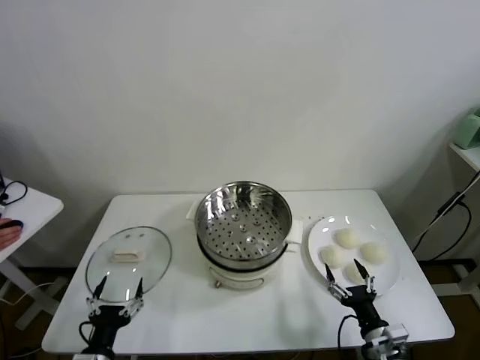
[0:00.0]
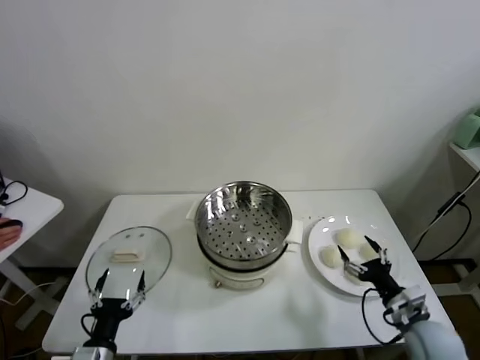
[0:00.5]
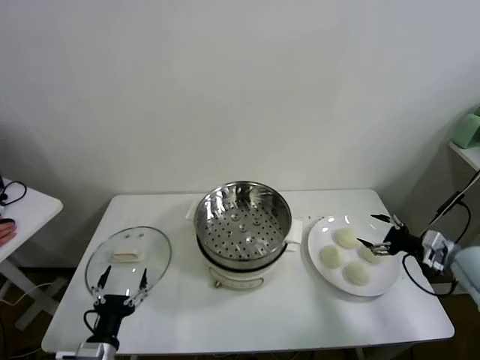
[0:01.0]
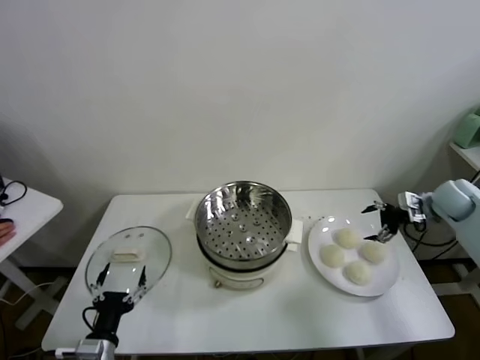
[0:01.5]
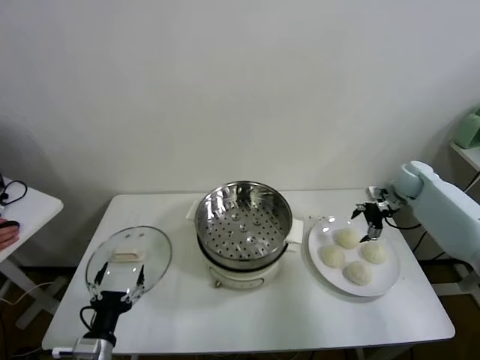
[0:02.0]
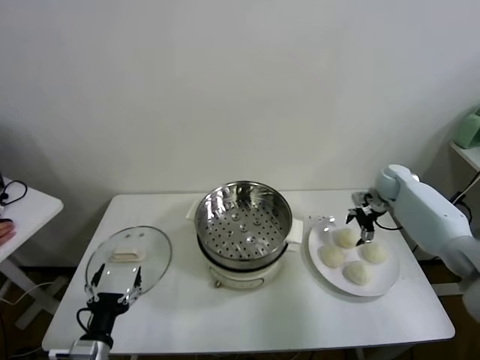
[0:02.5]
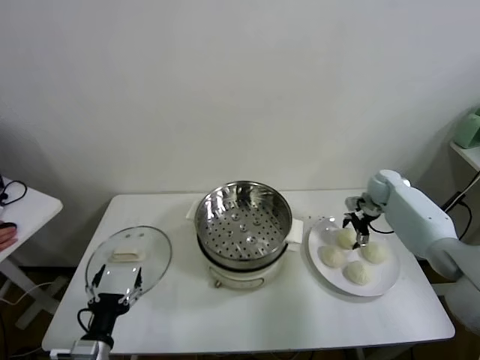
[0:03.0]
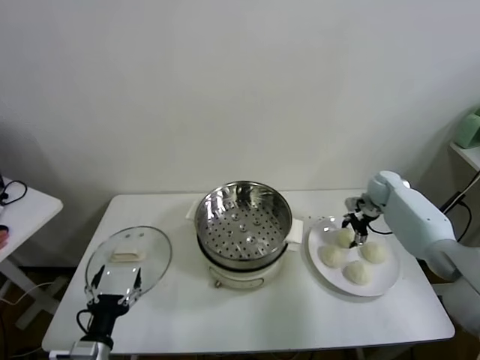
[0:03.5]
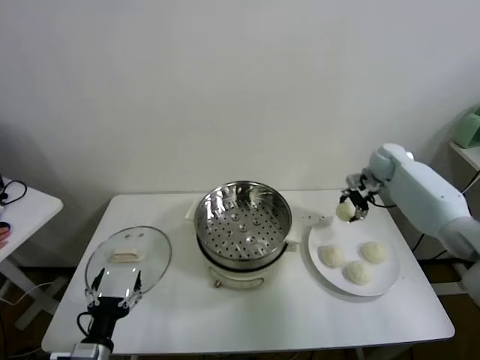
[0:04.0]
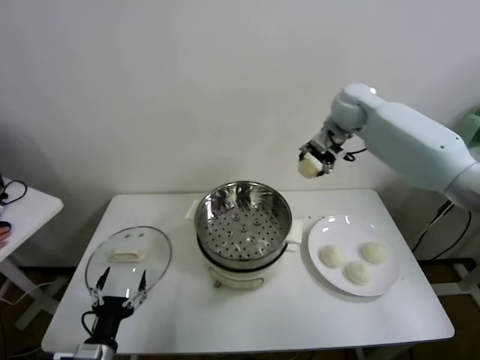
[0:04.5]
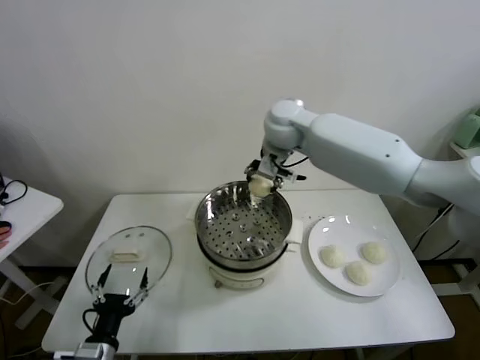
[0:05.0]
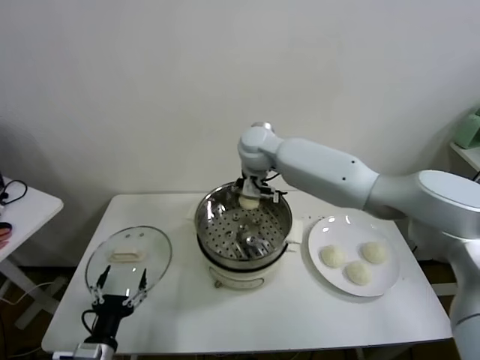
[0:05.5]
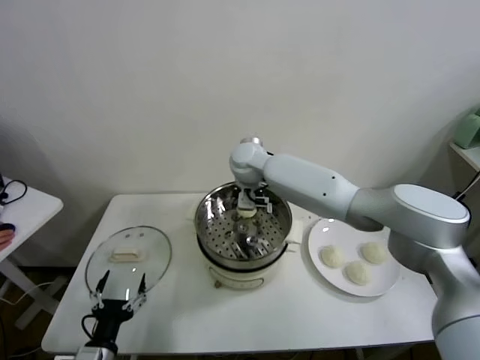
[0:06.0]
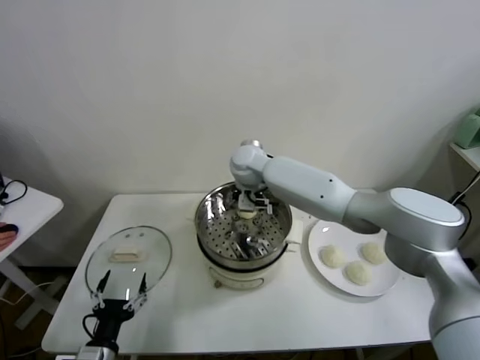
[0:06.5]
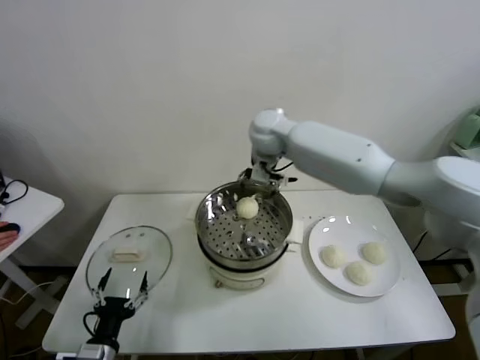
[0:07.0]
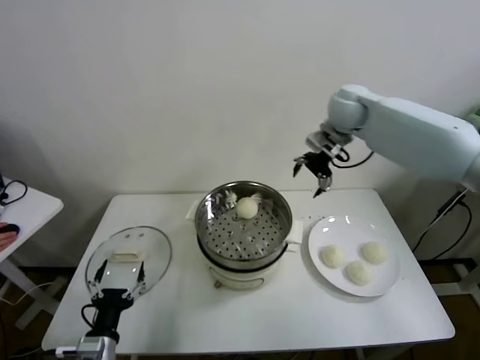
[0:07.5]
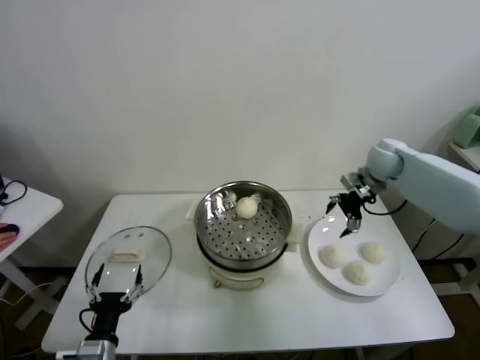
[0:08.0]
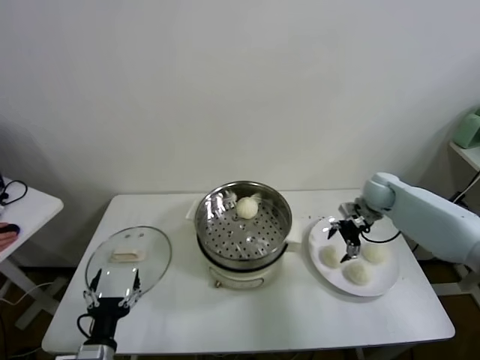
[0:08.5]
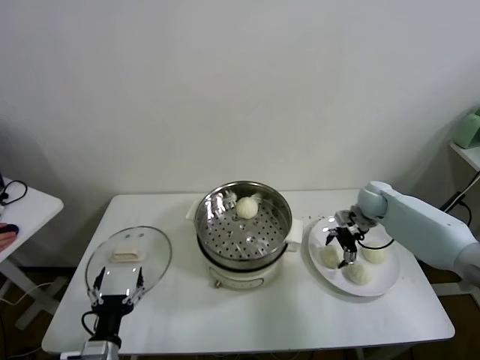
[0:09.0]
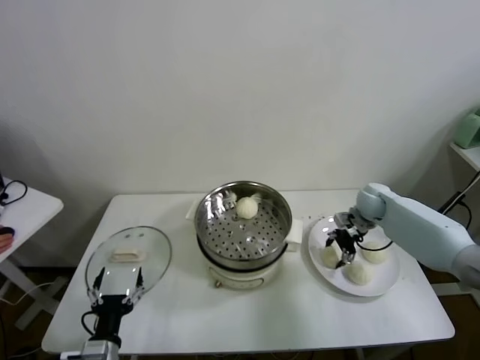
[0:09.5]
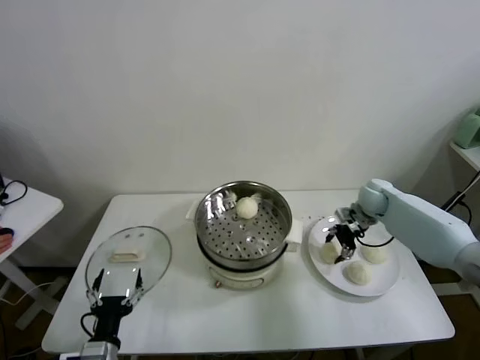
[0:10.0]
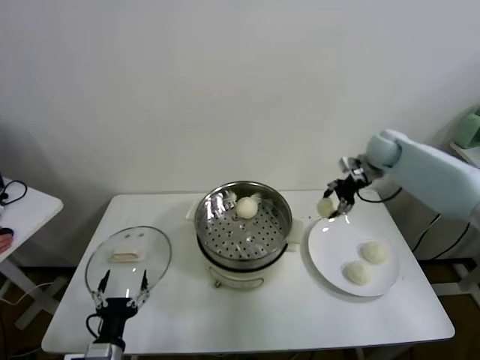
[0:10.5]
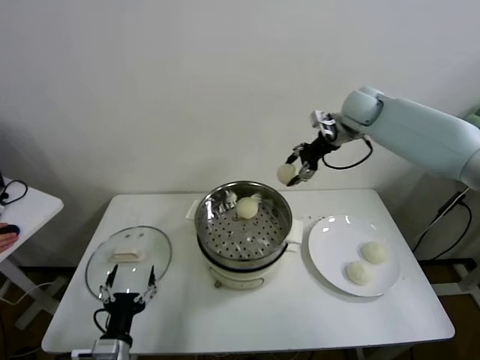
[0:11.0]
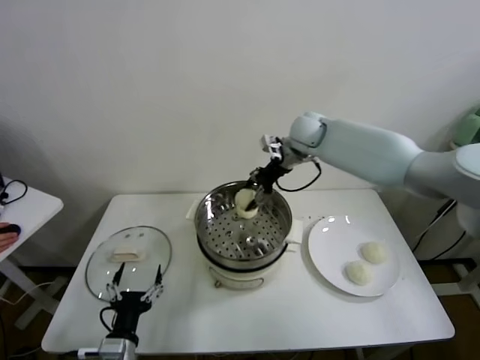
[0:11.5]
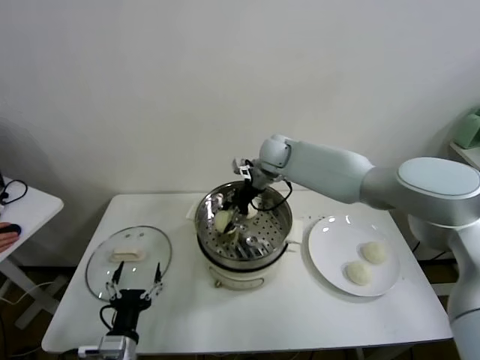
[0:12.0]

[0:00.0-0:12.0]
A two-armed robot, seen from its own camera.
Task of the whole recording: take steamed baozi put them in steamer.
Step, 0.0 to 3.0 s: Grasp the baozi in the plate with right gripper.
Step, 3.5 to 6.5 s: Place the baozi on the steamer with right gripper.
Step, 7.0 to 9.0 s: Grasp the baozi in the plate with right gripper.
2.0 to 4.0 s: The right gripper shifts roughly 10 cm upward and to the left, and closes its fingers.
4.0 to 6.0 s: The right gripper shifts about 35 cm to the left.
6.0 to 8.0 s: The right gripper moves to the right, approximately 35 cm, and opens up.
8.0 to 10.0 s: The right gripper goes about 10 cm downward, and closes its fingers.
10.0 to 12.0 s: The right gripper travels to the left by approximately 30 cm.

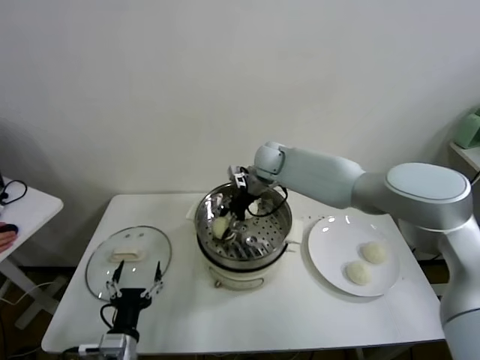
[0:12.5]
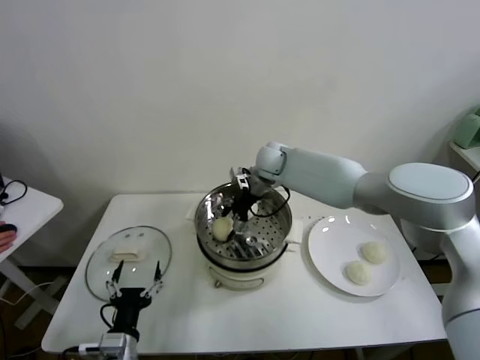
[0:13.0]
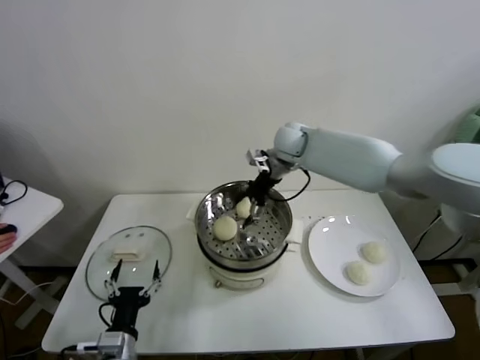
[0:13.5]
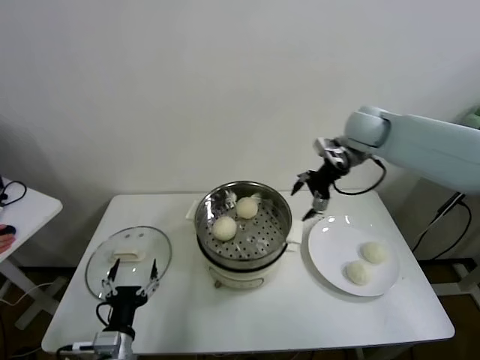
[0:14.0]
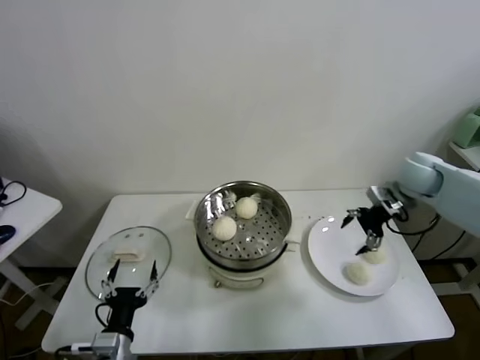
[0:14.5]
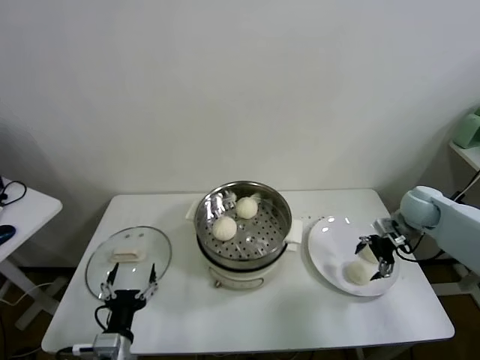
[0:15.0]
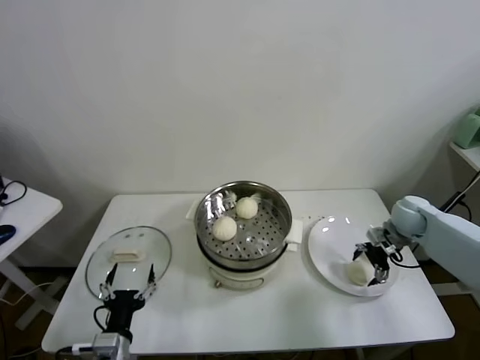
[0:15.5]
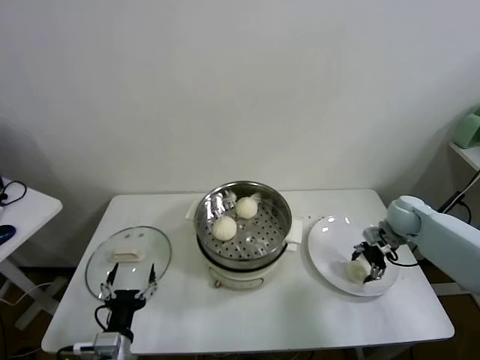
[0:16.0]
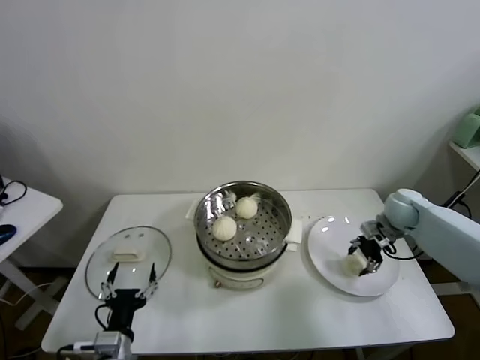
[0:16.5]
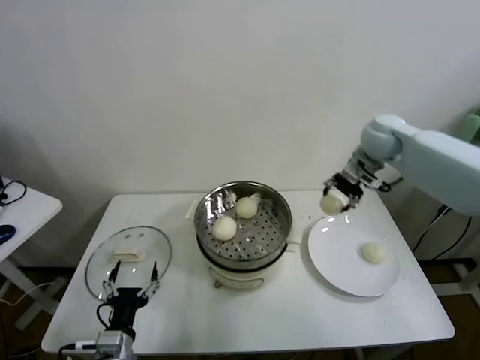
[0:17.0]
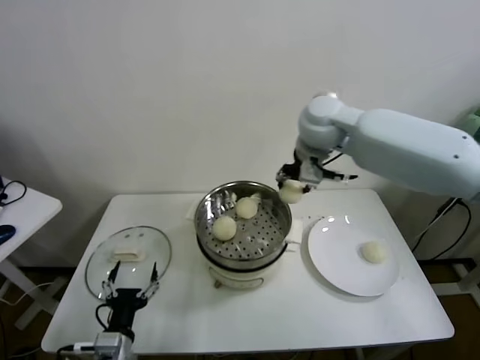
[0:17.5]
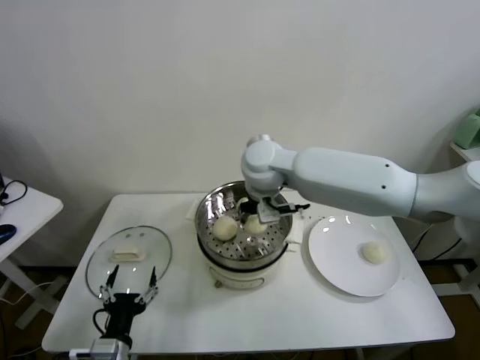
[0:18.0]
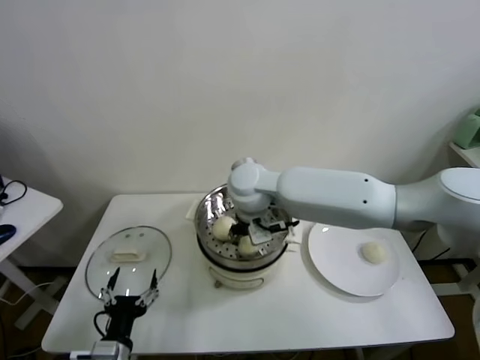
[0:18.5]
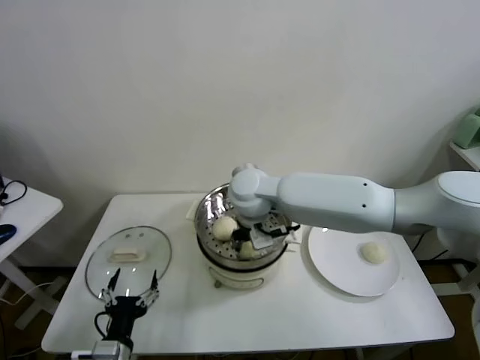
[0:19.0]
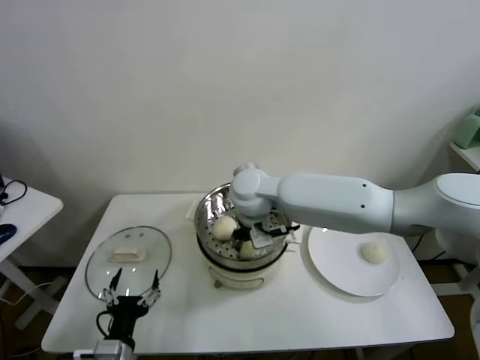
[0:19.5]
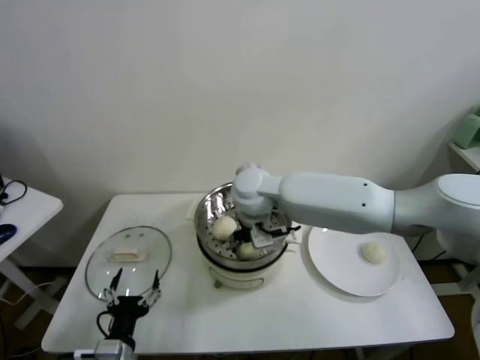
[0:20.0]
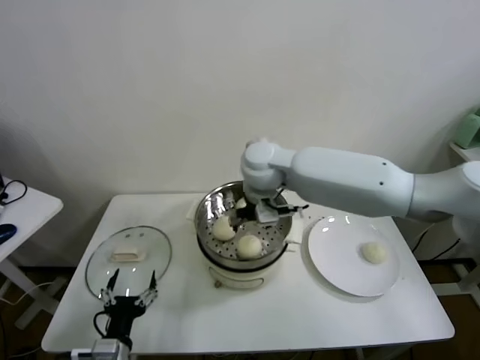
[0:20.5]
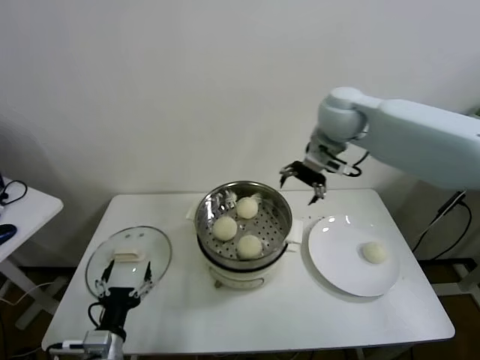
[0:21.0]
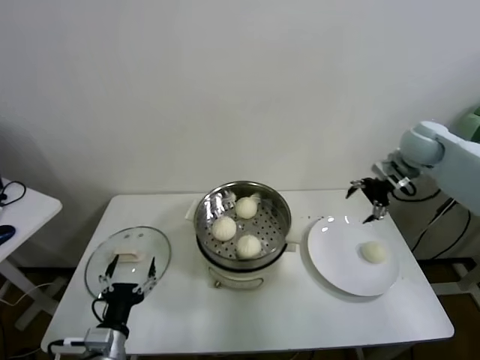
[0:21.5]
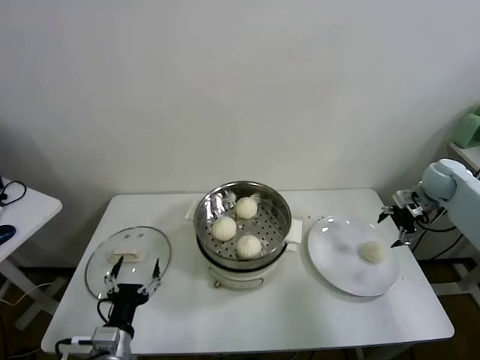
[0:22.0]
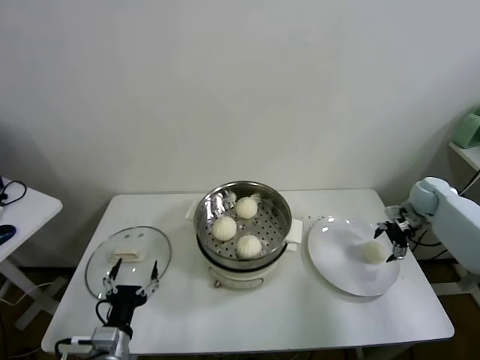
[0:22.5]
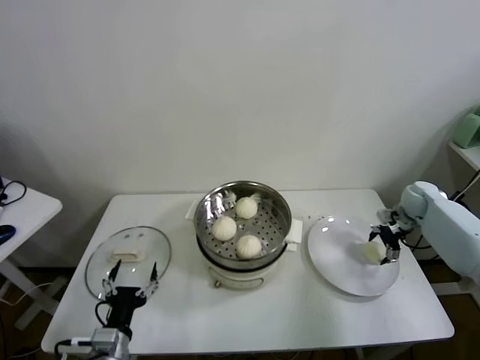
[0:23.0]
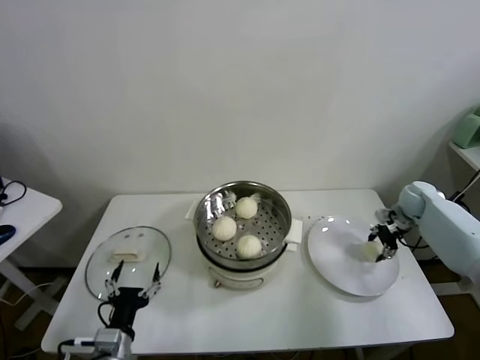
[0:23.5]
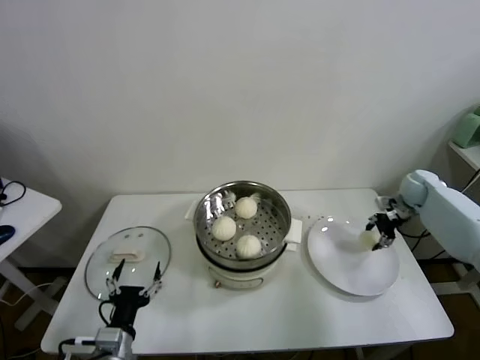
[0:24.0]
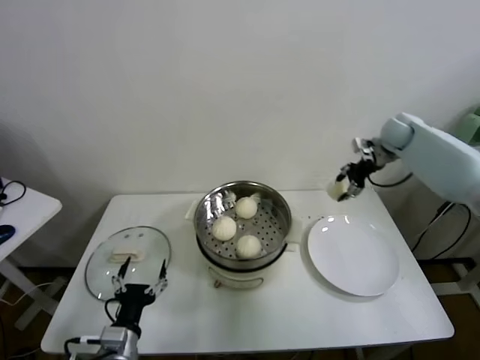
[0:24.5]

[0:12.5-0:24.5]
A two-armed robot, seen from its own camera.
Task of the whole recording: take steamed baozi put them in steamer.
Step, 13.5 to 15.5 s: Grasp the baozi in the plate with right gripper.
Step, 16.0 to 20.0 s: Place the baozi on the steamer with right gripper.
Step, 20.5 to 23.0 s: Grasp the baozi in the plate with right gripper.
12.5 to 14.5 s: The right gripper goes about 35 cm to the right, and opens its fingers.
14.5 to 16.5 s: The right gripper shifts some 10 cm downward, and closes.
16.5 to 18.5 s: The right gripper heads to the left, covering approximately 40 cm.
18.5 to 20.5 s: The right gripper ends up approximately 5 cm from where it was, and opens up.
20.5 to 22.5 s: The right gripper moves to the right, about 50 cm.
22.5 to 24.5 s: The right gripper heads upward, to the left and forward, covering some 20 cm, and closes its fingers.

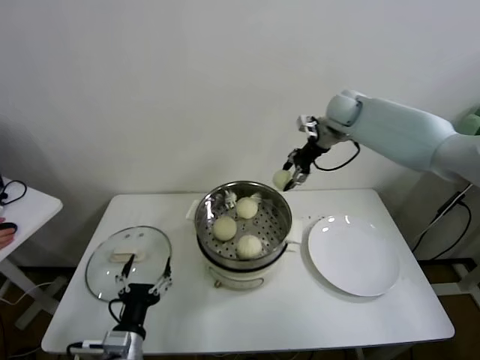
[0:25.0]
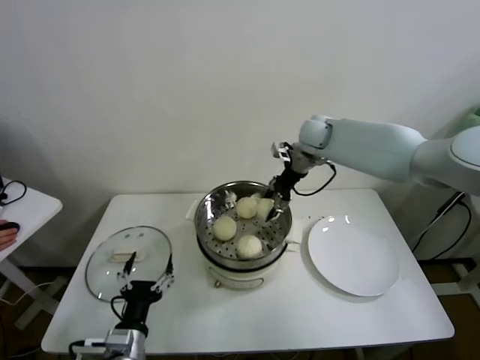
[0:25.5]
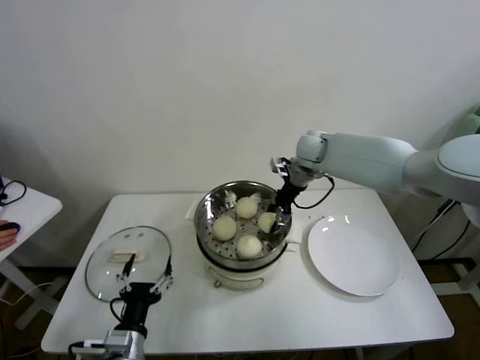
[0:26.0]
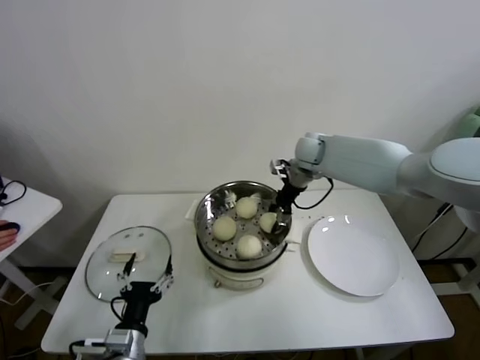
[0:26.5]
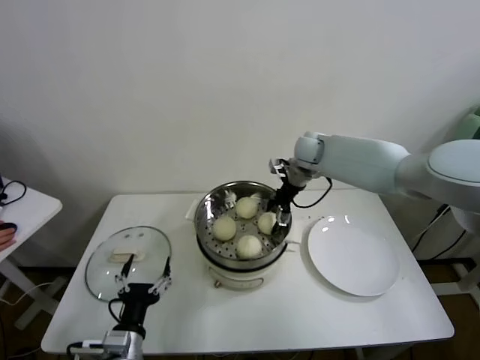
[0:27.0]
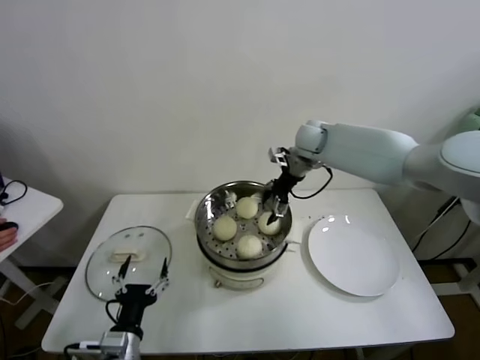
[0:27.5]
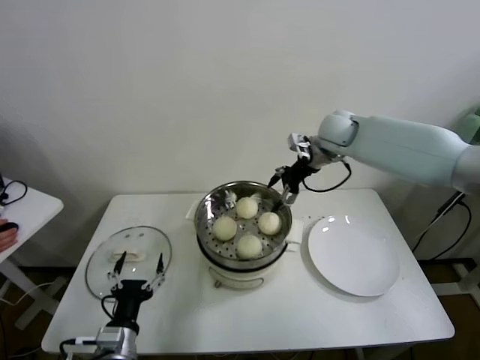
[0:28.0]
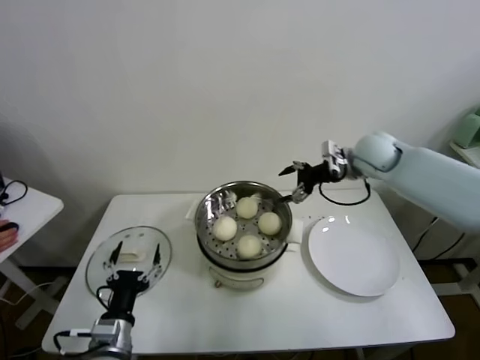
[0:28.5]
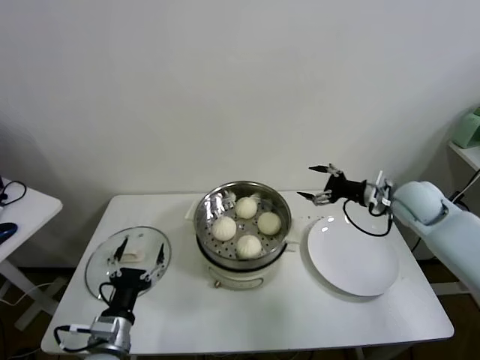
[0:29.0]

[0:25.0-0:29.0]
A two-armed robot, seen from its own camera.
Task of the whole recording: take steamed baozi put them in steamer.
Step, 25.0 to 27.0 s: Place the baozi on the steamer with right gripper.
25.0 to 27.0 s: The right gripper heads downward and to the left, covering about 10 cm, and opens.
27.0 to 29.0 s: The right gripper shifts some 25 cm to the right and backward.
